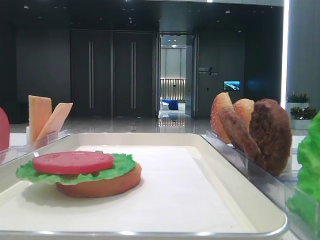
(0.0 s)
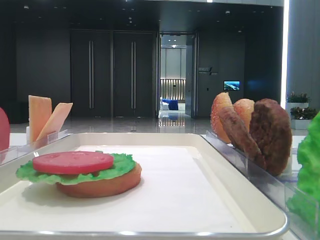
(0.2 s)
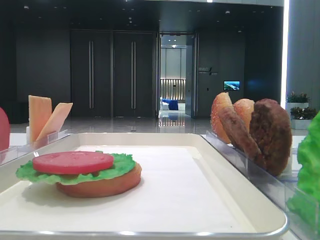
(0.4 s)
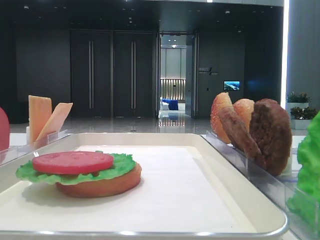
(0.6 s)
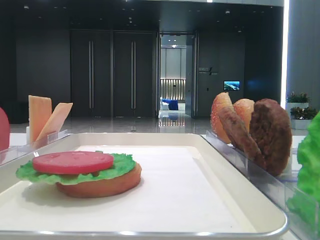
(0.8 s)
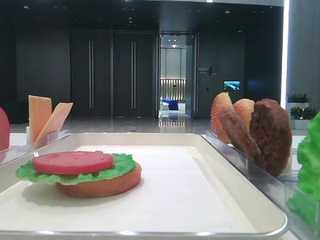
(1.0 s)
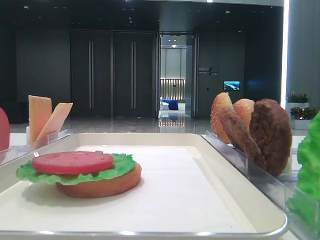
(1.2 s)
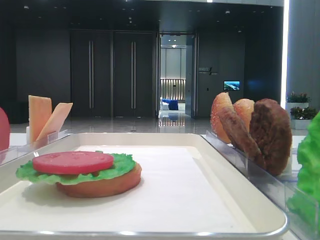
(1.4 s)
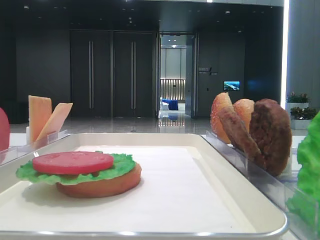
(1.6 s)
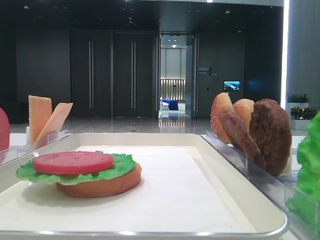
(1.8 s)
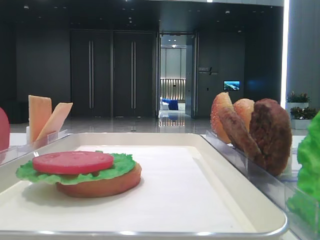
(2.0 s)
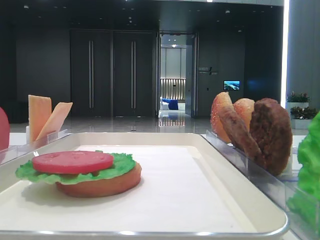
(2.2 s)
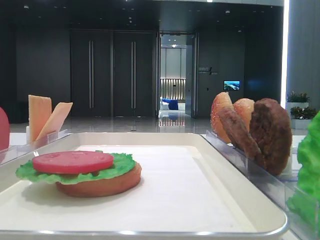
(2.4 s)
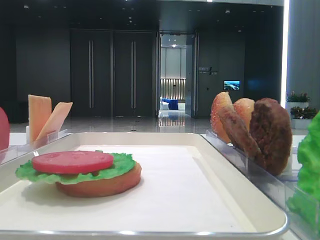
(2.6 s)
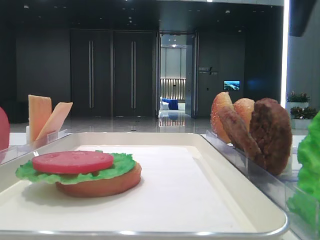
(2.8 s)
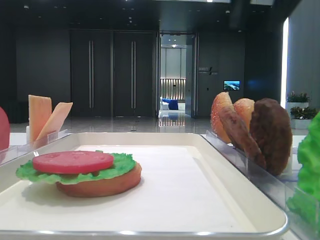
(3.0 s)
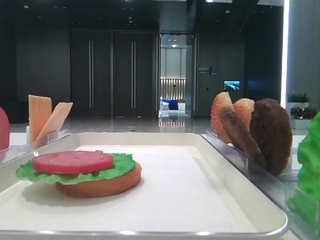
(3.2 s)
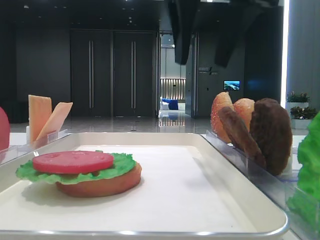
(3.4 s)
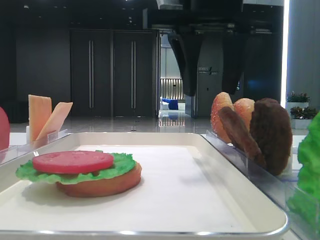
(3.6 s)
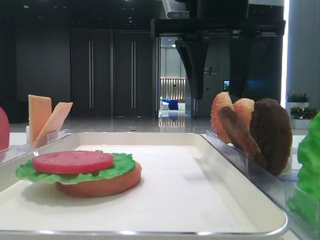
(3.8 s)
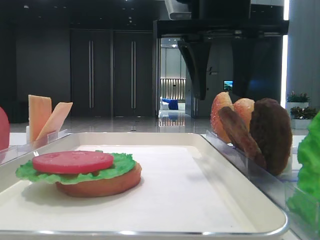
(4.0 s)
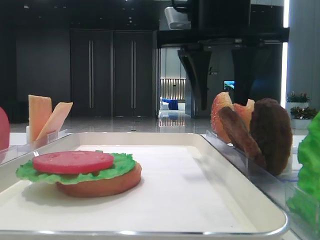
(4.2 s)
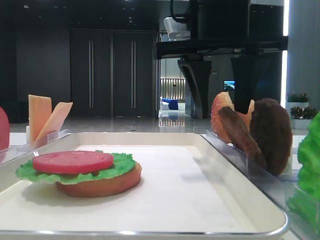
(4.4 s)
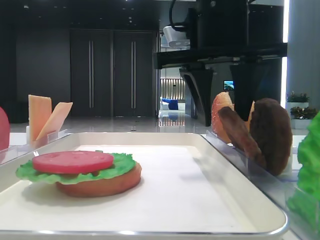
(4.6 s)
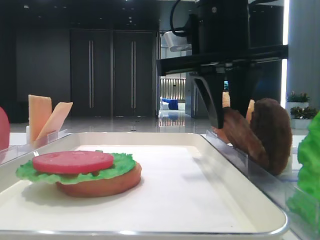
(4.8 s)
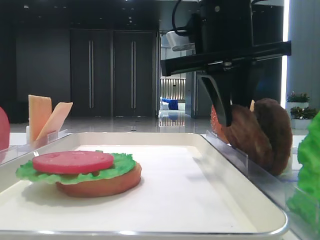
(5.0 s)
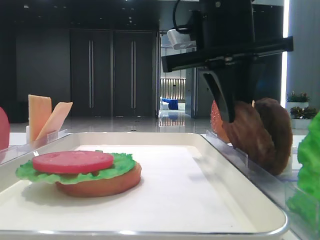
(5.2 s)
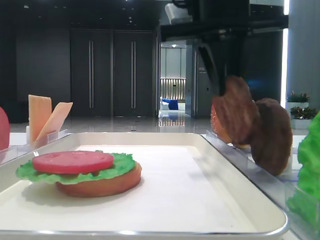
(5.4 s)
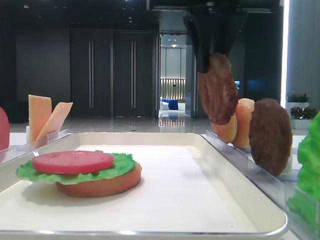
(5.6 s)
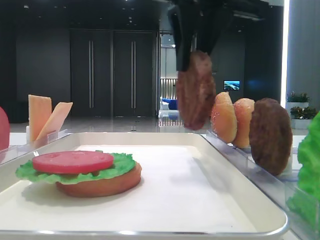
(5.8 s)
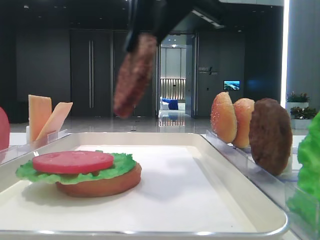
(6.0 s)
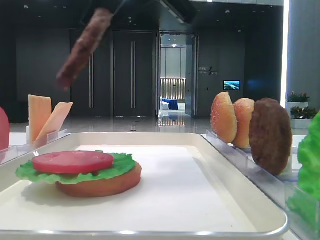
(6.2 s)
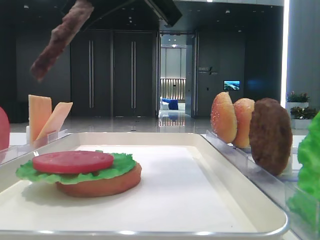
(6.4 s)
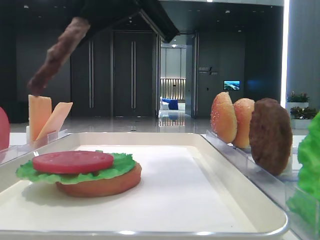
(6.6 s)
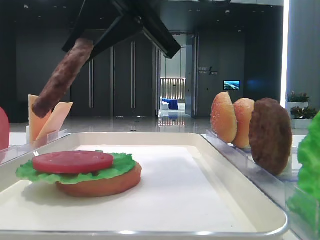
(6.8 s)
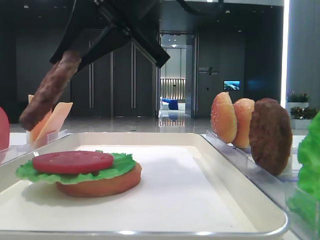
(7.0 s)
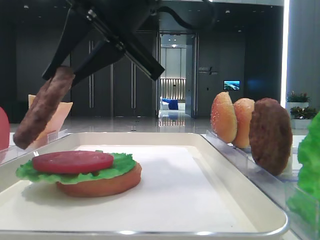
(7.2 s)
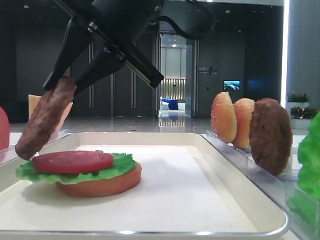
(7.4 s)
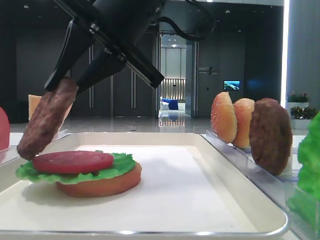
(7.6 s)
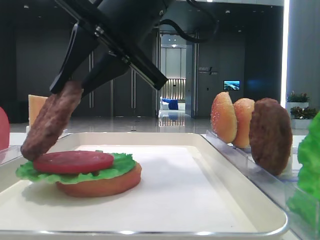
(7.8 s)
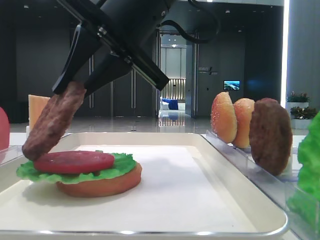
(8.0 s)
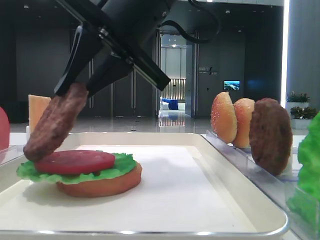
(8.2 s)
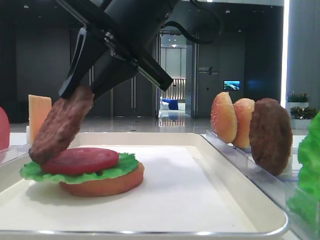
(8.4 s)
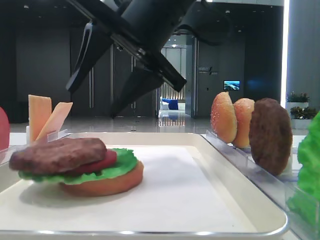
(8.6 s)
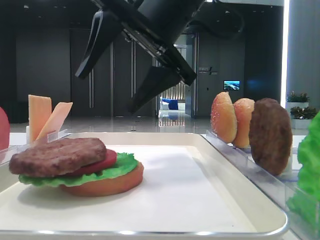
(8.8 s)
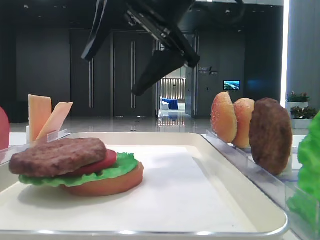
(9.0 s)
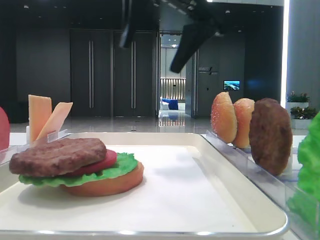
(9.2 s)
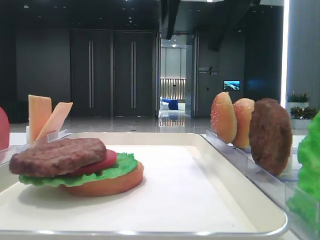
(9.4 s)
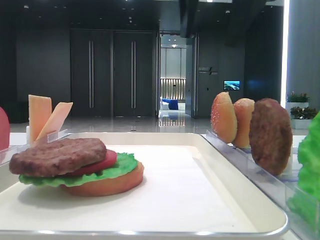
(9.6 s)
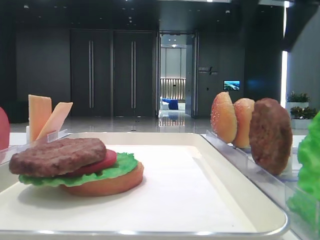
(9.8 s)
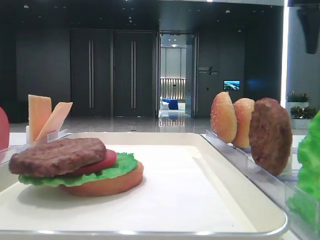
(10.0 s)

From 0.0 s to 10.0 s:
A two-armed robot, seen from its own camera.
Step, from 0.0 s to 5.2 s: Grab the patty with the right hand.
Step, from 5.4 s to 8.6 s: Place the patty on the tomato slice with the right hand.
From 1.4 s to 2.8 s: The right gripper is displaced forward by some 30 cm.
From 2.8 s to 4.2 s: The right gripper travels to the left and downward by about 15 cm.
From 4.2 s to 5.8 s: The right gripper closes its fingers.
From 5.8 s to 7.2 s: The right gripper heads to the left, covering about 5 cm.
From 7.2 s to 8.6 s: The right gripper opens its fingers.
From 8.6 s to 10.0 s: The right gripper goes about 25 cm to the right, and opens its fingers.

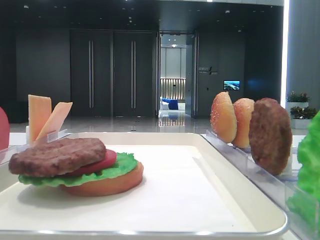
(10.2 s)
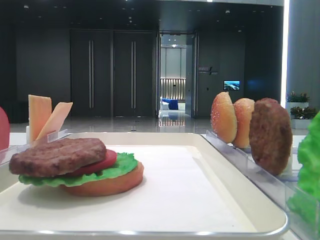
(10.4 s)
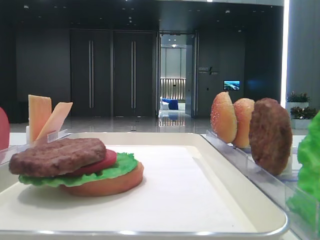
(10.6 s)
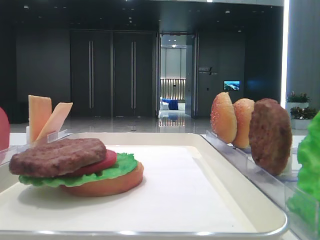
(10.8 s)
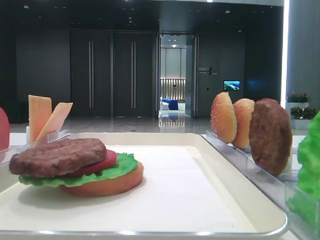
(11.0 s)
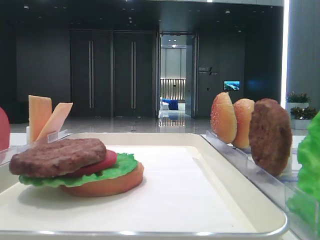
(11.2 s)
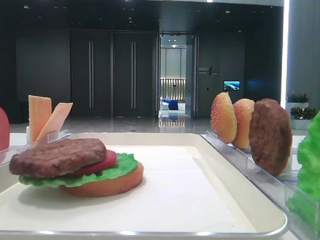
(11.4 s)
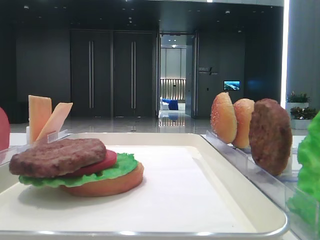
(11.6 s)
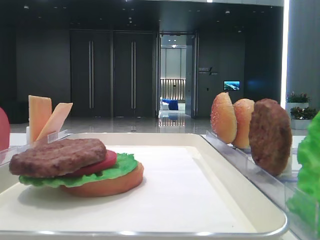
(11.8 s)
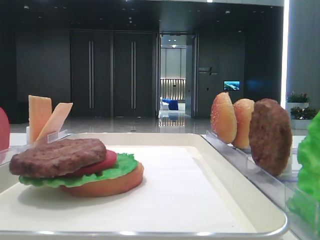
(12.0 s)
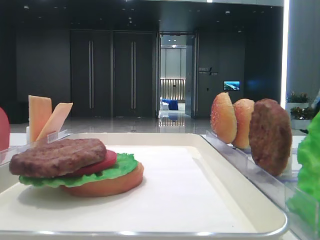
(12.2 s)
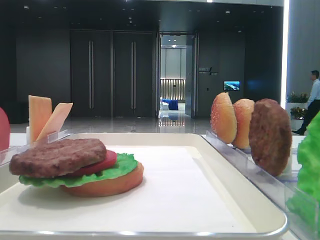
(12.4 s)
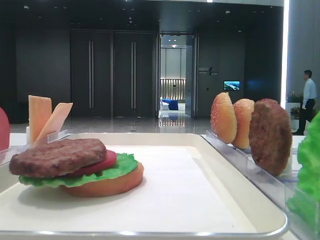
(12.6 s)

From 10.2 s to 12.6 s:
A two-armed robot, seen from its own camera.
From 11.4 s to 12.6 s: The right gripper is displaced backward by about 5 cm.

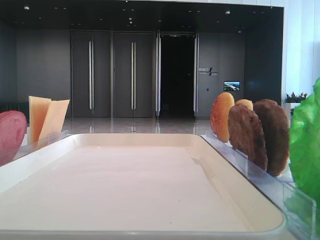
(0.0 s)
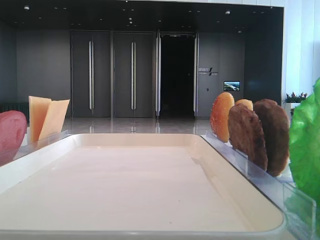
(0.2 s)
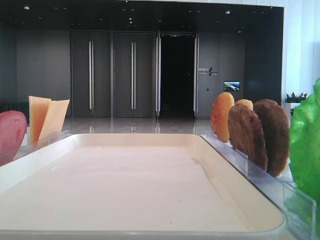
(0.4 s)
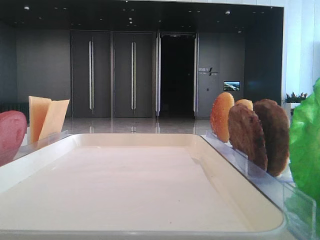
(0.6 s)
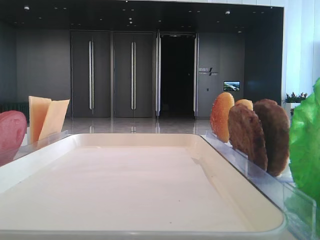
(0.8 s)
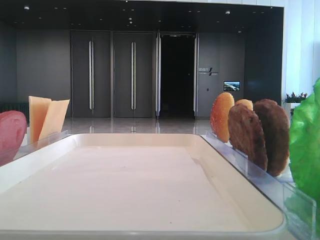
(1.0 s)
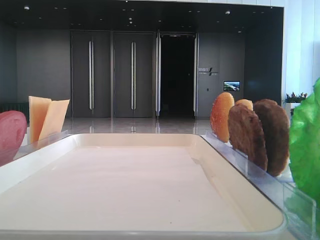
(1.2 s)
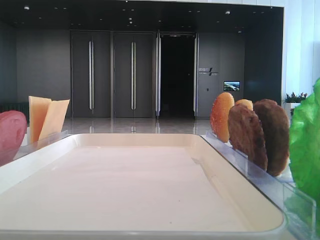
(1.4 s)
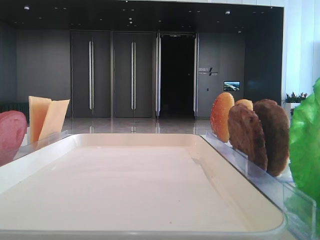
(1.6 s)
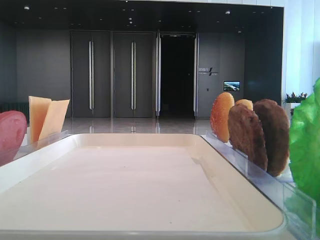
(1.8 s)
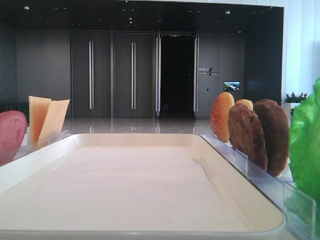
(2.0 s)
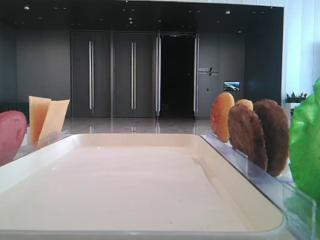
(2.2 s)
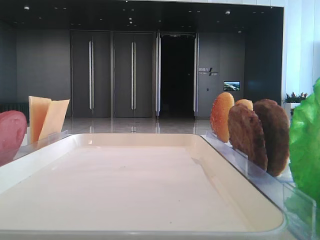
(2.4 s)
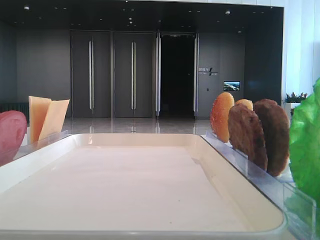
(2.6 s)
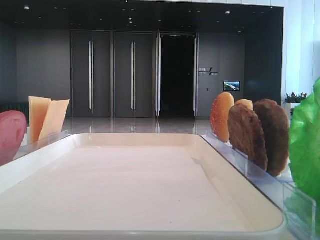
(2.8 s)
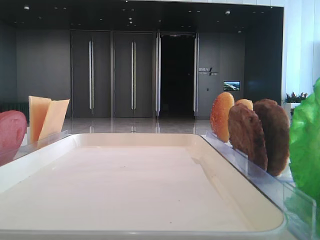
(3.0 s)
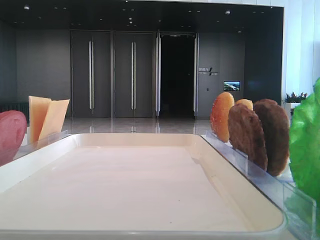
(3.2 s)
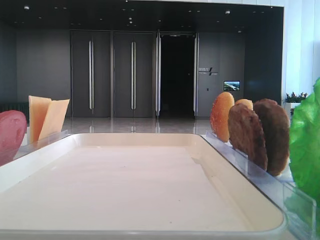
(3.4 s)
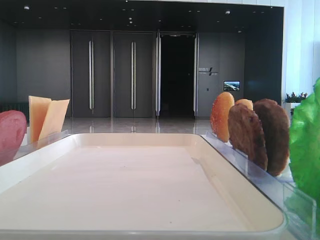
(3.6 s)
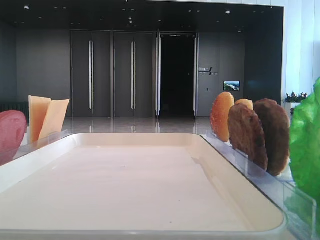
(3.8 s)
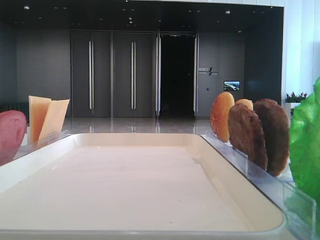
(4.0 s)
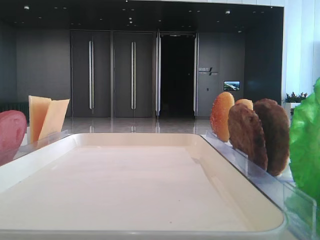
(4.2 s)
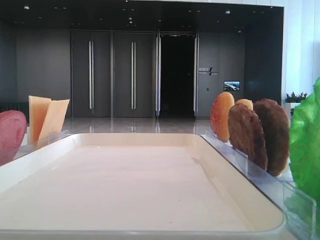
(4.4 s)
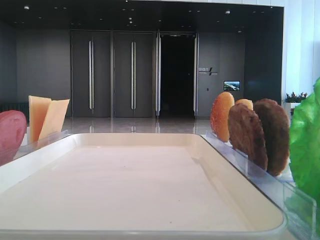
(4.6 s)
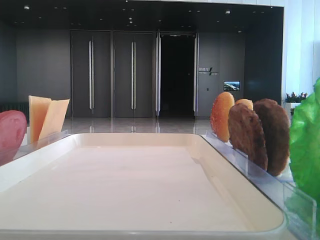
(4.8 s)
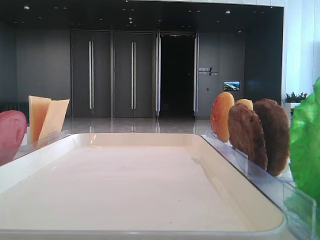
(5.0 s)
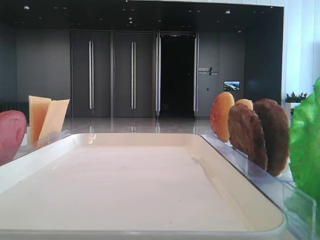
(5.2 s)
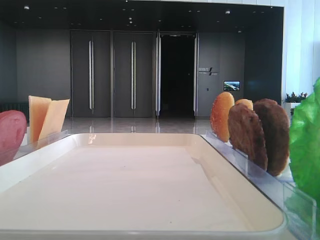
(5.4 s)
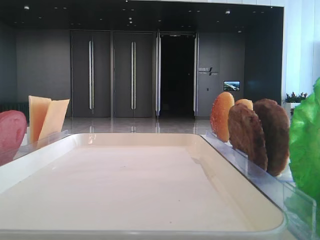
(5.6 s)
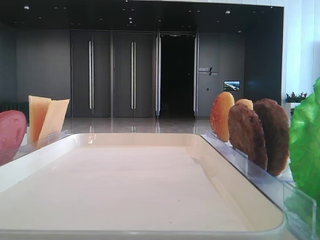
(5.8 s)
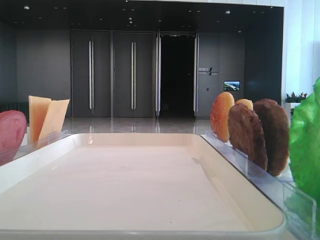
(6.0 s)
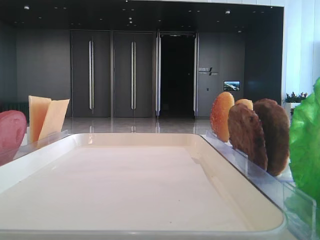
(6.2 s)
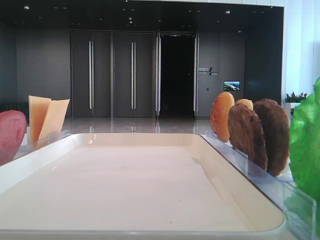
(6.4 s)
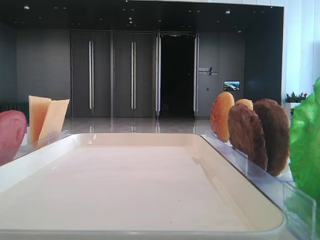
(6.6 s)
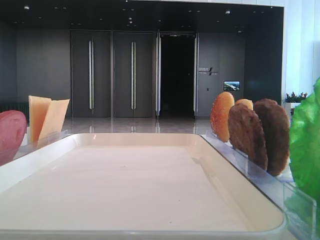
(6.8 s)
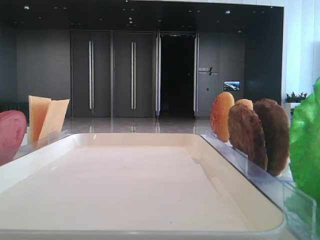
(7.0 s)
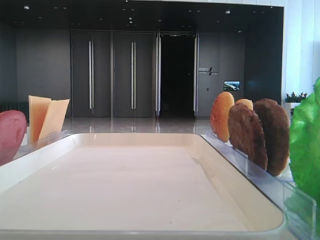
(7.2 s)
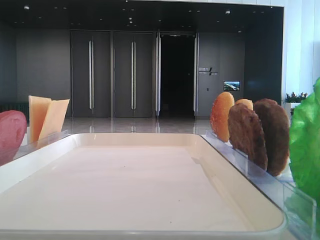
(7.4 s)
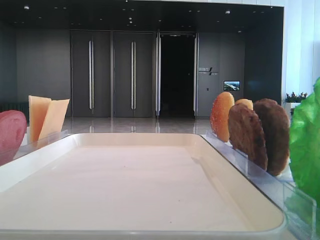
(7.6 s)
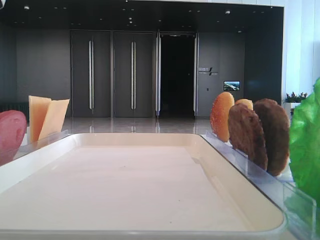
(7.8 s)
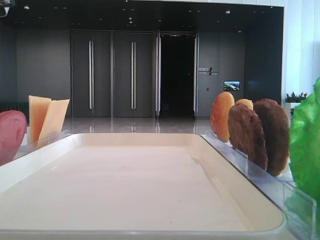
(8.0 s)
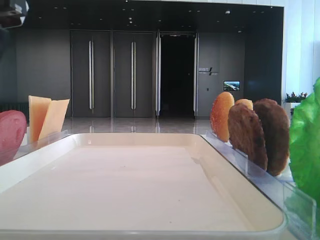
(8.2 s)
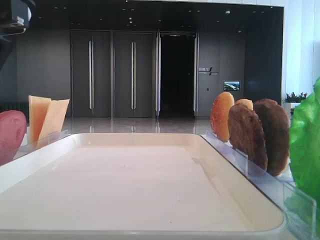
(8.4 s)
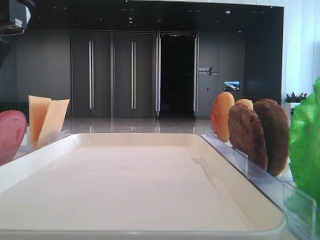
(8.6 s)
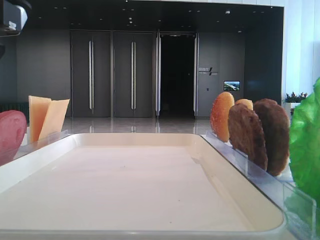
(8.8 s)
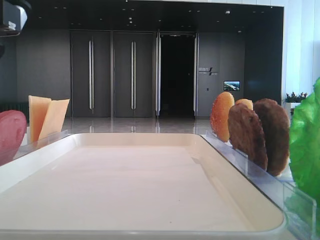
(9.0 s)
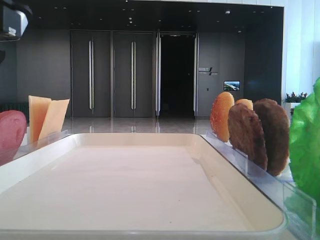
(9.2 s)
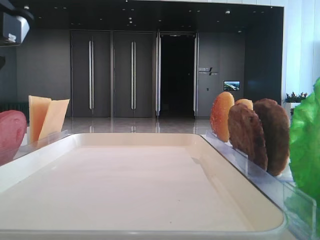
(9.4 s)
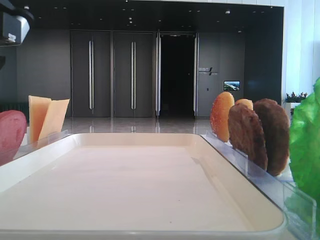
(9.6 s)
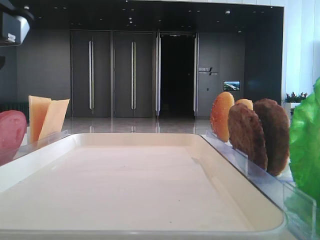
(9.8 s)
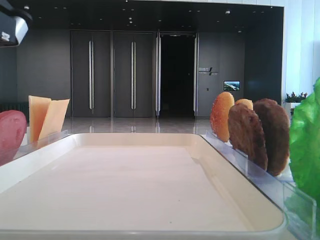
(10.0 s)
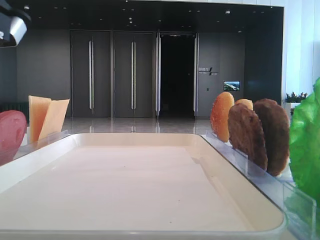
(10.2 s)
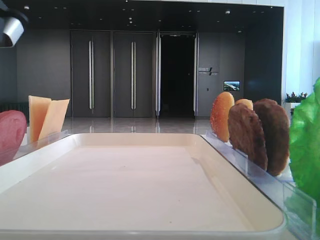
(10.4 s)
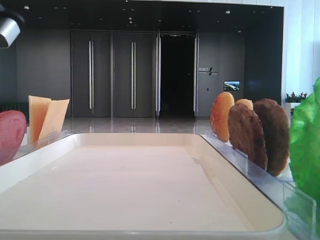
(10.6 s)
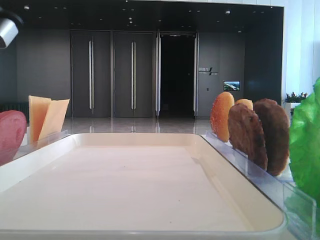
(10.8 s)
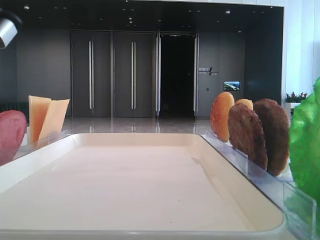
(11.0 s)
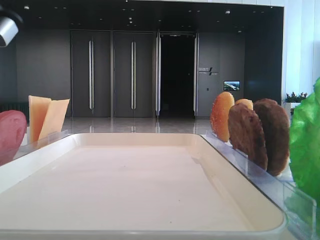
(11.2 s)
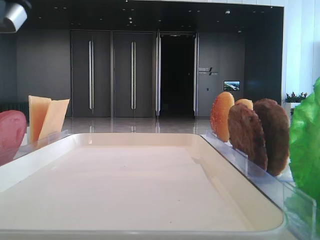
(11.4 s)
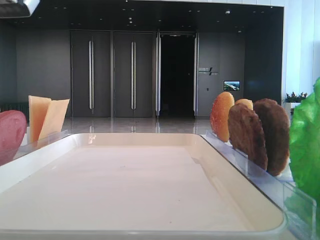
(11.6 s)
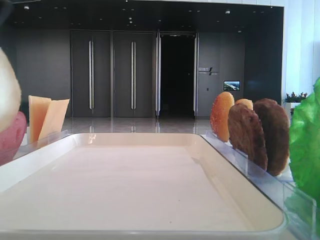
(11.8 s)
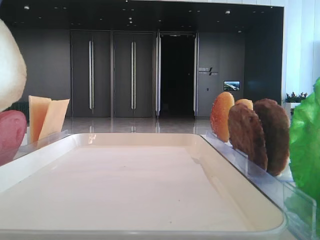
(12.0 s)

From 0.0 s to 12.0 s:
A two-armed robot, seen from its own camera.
From 9.0 s to 10.4 s: The left gripper closes its fingers.
From 10.4 s to 12.0 s: The left gripper shifts approximately 10 cm upward.
